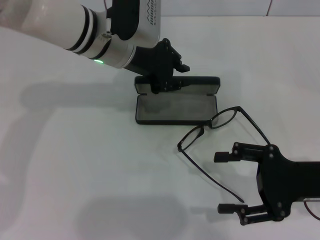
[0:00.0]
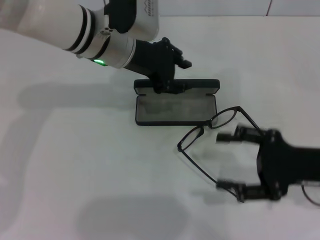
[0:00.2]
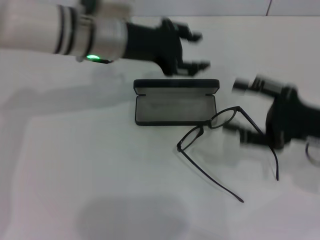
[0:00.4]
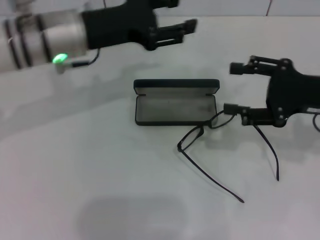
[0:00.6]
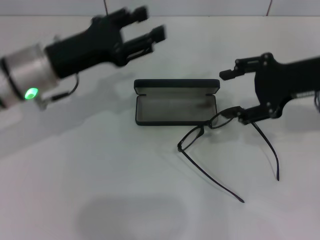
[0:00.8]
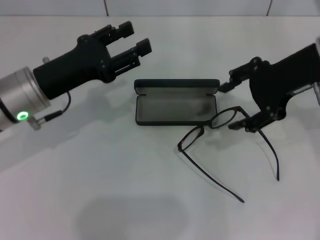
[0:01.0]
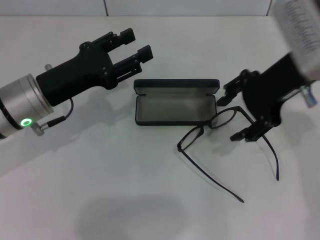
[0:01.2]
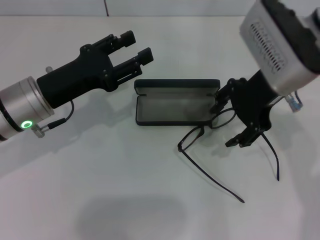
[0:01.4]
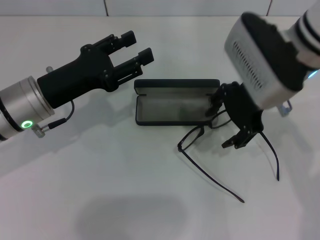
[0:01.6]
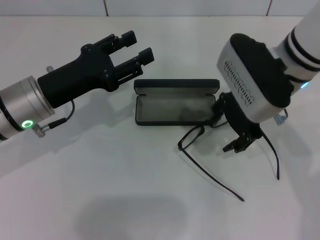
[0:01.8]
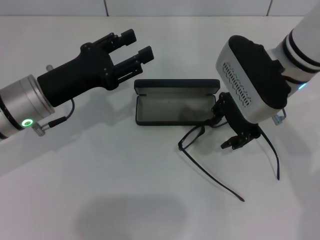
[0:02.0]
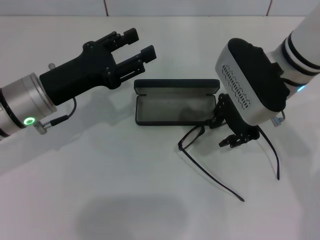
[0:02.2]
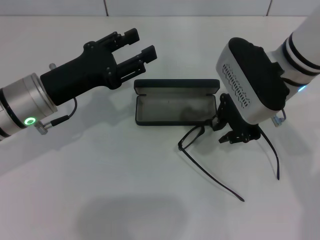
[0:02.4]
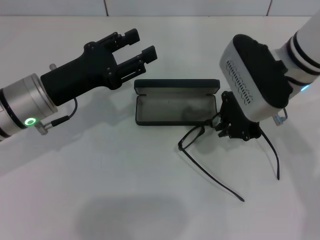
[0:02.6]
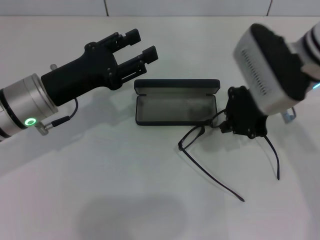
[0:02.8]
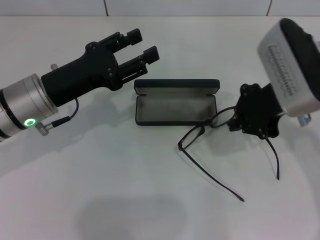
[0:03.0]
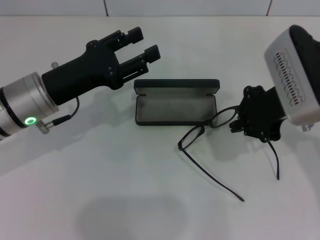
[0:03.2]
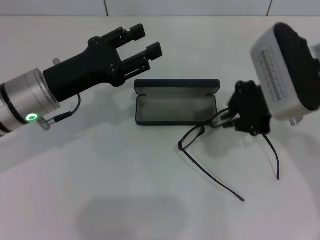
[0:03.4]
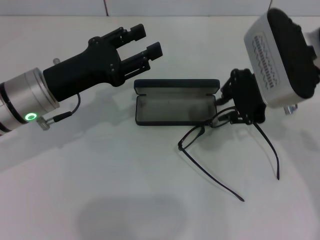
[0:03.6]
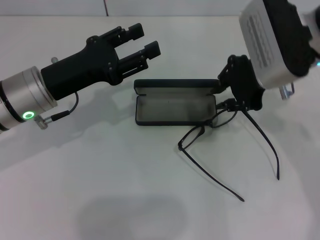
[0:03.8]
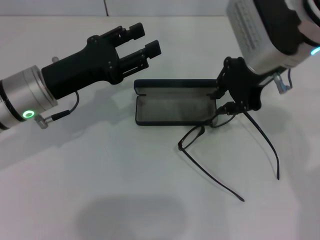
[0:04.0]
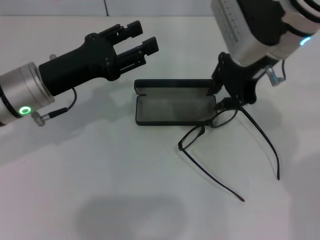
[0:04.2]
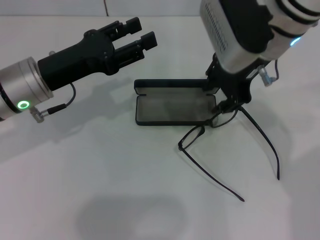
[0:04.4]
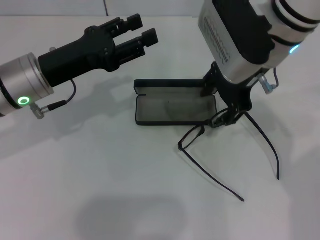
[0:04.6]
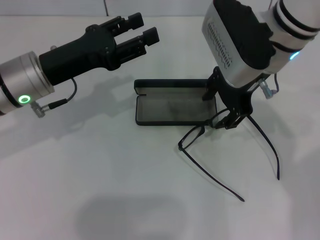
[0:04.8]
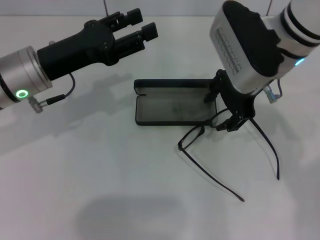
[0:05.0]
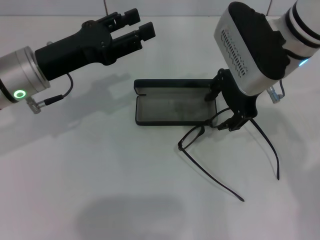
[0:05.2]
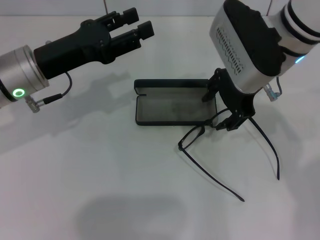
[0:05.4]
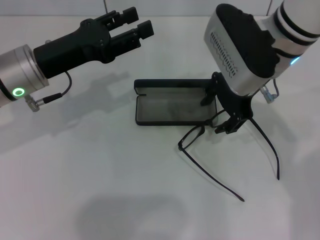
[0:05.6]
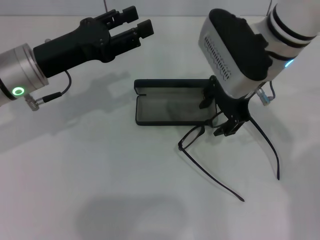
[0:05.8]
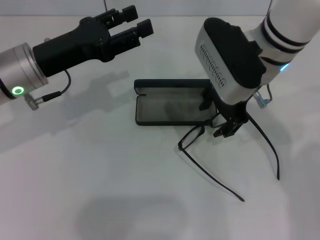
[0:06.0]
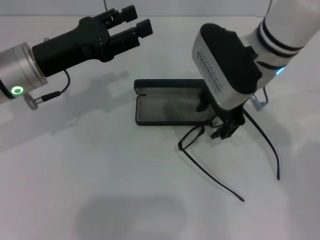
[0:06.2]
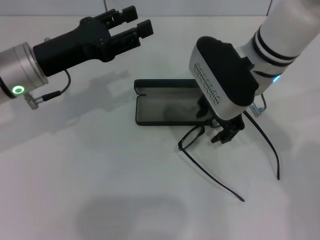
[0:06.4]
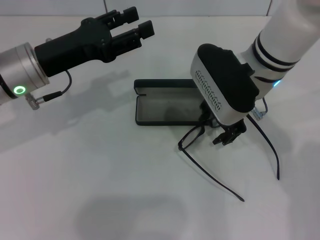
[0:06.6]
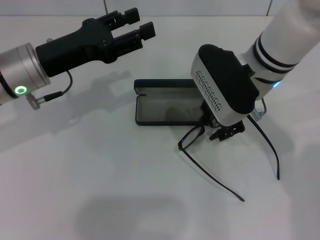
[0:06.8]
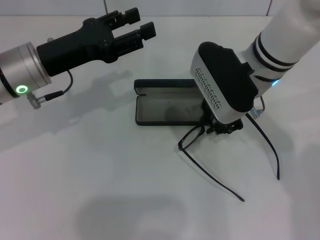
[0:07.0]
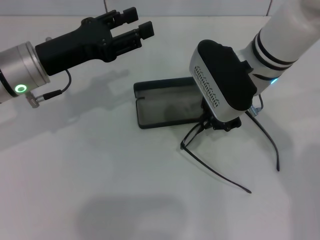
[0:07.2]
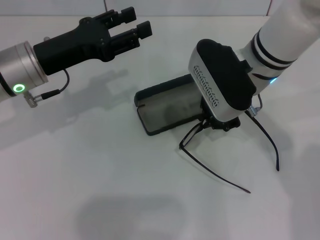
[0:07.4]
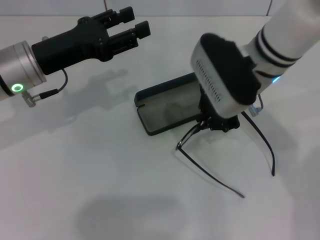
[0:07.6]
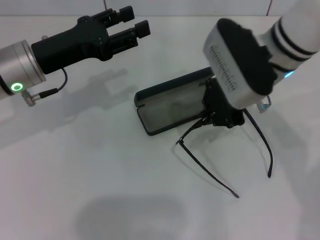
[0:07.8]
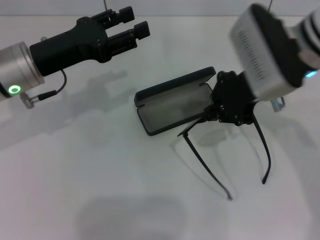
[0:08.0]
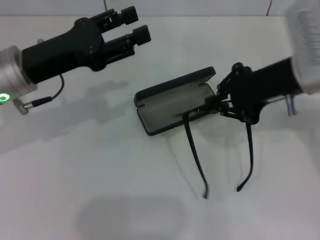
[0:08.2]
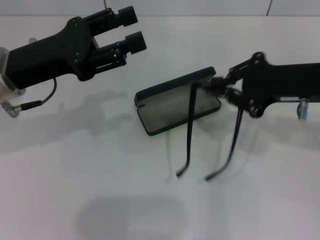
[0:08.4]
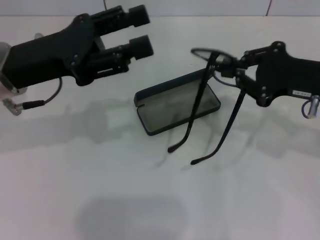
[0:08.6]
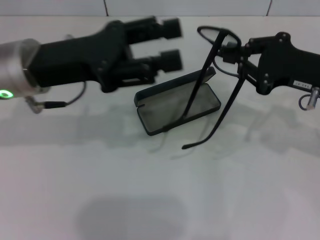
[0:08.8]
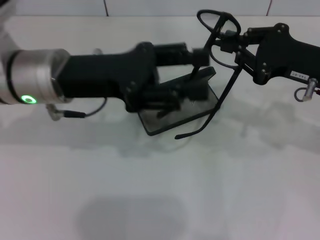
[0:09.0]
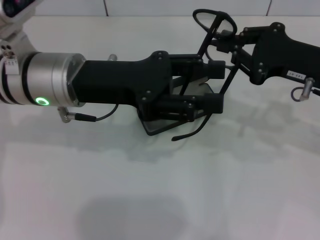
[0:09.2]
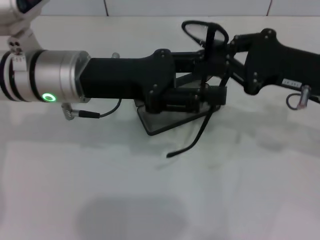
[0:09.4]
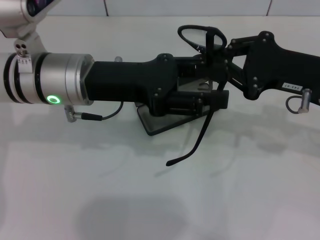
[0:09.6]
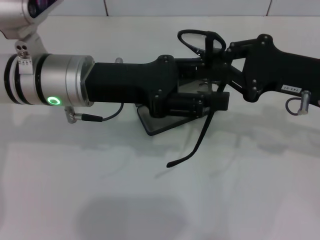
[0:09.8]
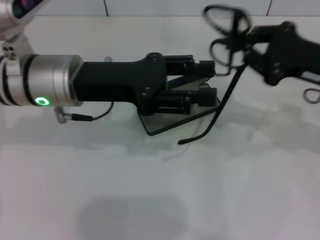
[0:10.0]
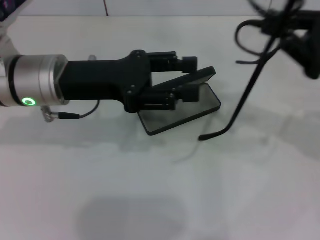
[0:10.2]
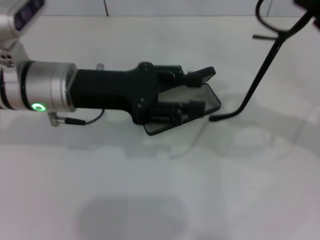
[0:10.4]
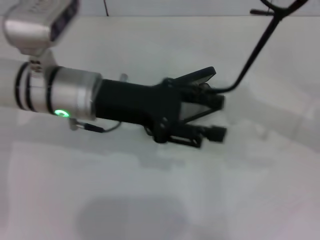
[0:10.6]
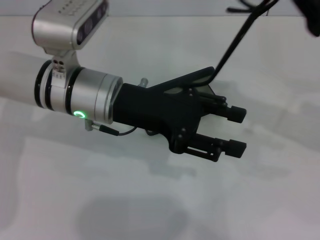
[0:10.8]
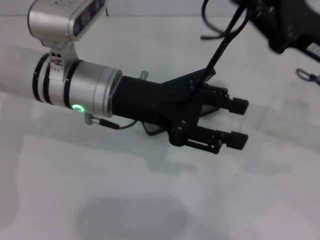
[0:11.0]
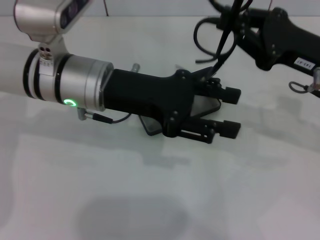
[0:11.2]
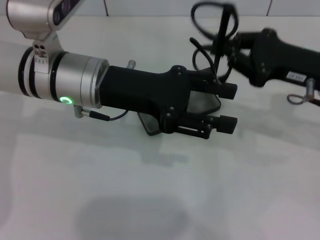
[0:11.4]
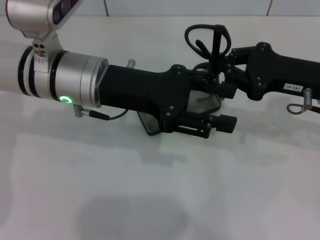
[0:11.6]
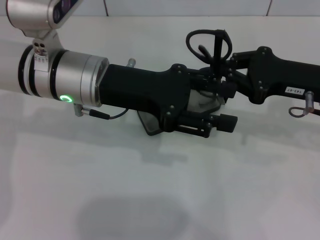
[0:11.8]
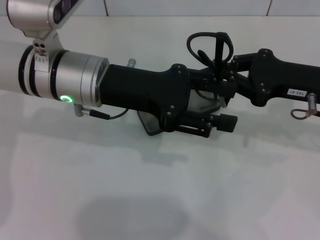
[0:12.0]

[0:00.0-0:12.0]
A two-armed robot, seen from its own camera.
Step, 0:00.2 to 0:07.2: Grab the eyeglass frame with your right hand.
0:00.0 to 0:01.6: The left gripper is displaced to the left, backward and downward by roughly 15 cm, and opens its fingers. Meanwhile the right gripper goes about 20 cm to the left, upward and forward.
0:01.6 to 0:03.0: The right gripper closes its fingers.
0:03.0 to 0:04.4: The right gripper heads to the left, covering approximately 5 cm, and opens its fingers.
0:04.4 to 0:06.0: The right gripper opens up.
0:06.0 to 0:07.6: The right gripper closes up.
0:07.6 to 0:09.0: The right gripper moves to the right, roughly 15 cm; the left gripper shifts some 5 cm to the right.
0:09.0 to 0:10.4: The right gripper shifts by some 5 cm.
0:10.4 to 0:12.0: The right gripper heads to the left, covering about 5 cm.

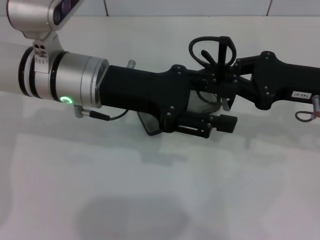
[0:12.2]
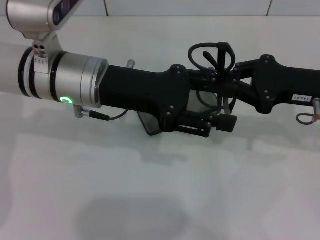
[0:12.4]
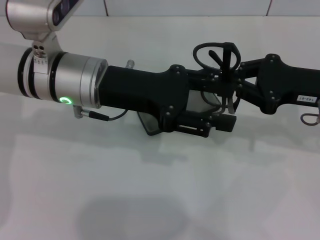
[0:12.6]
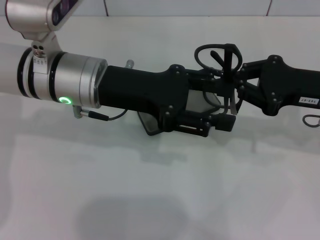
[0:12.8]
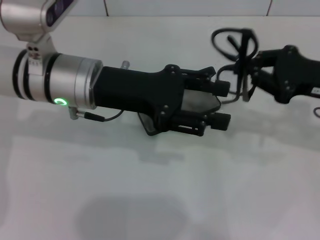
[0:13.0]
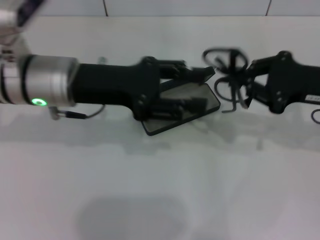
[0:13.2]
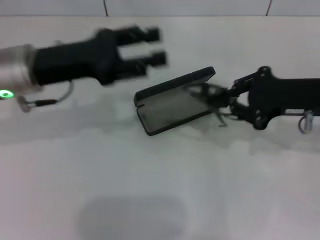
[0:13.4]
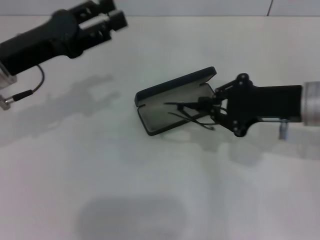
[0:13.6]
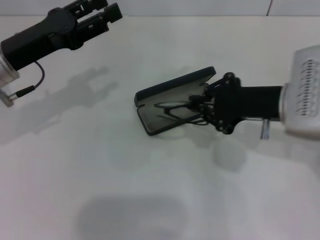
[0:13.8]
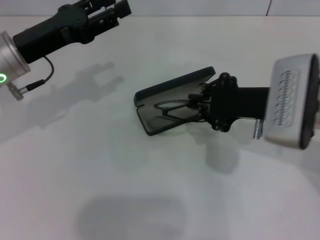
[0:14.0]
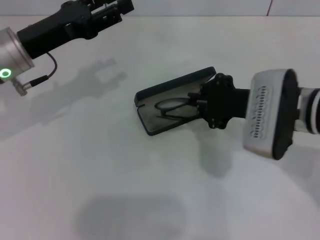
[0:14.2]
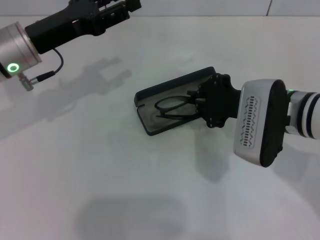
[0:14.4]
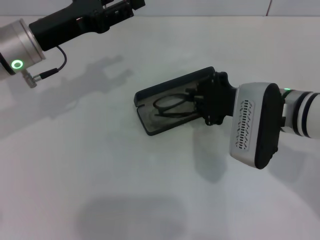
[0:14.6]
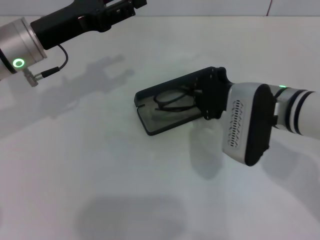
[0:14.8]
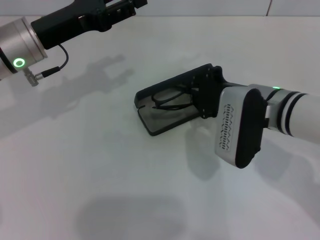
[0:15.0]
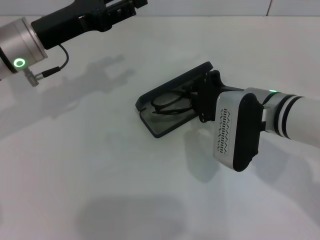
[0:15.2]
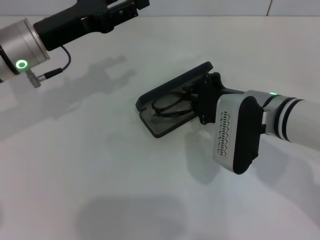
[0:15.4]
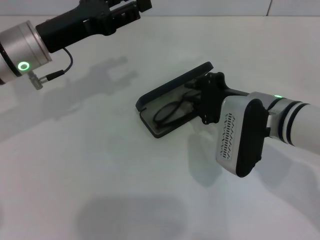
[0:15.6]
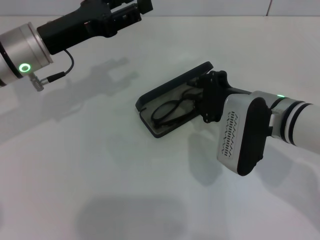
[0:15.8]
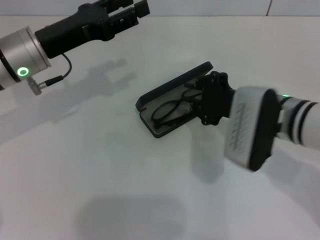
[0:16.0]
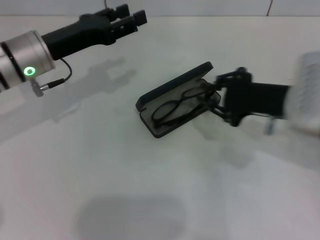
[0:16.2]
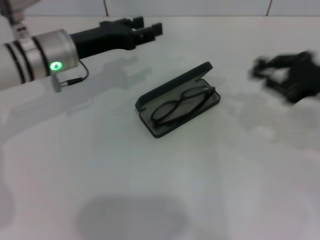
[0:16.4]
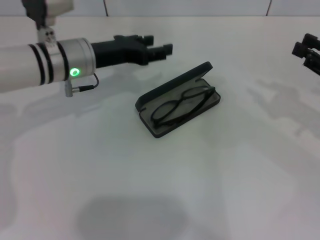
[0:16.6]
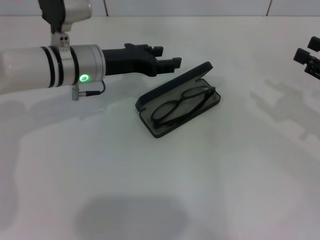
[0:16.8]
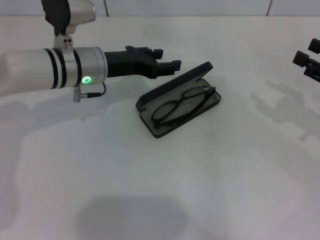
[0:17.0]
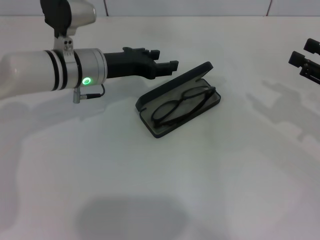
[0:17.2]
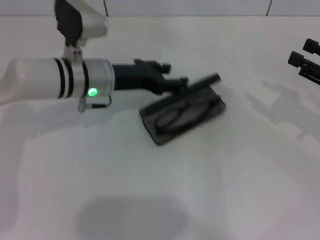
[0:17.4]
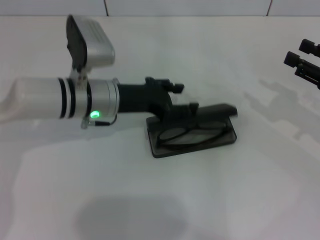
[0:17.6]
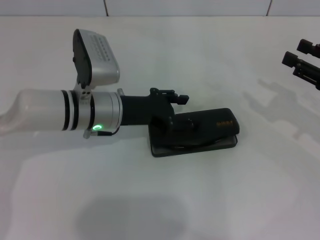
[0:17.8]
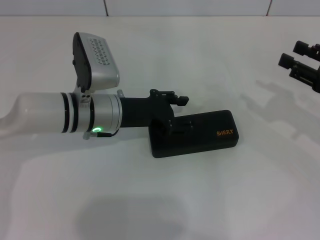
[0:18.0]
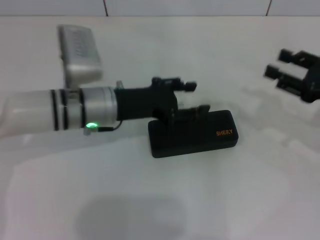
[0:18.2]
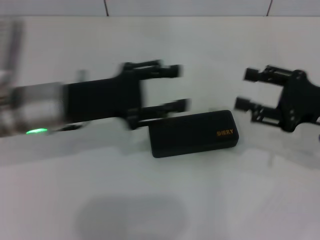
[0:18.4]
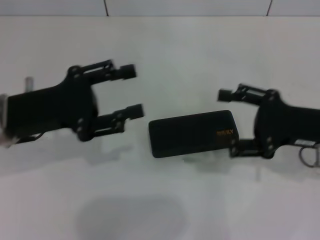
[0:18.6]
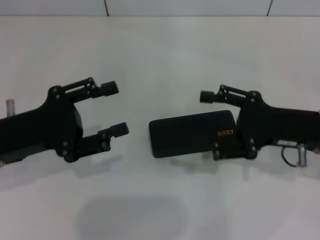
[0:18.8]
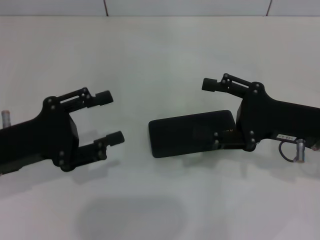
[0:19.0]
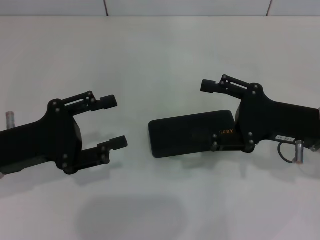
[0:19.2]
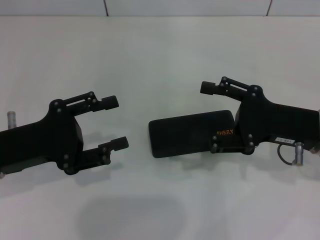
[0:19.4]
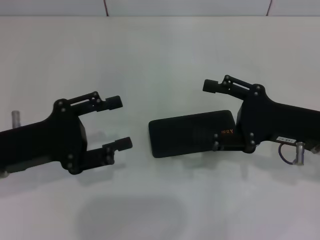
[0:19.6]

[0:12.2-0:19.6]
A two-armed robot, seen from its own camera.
Step, 0:12.8 to 0:15.8: Put the glasses into the case with your right hand.
Step, 0:16.0 to 0:17.8: Close the glasses case with your left hand.
0:12.2 to 0:13.6: The left gripper is displaced to the left by about 10 cm.
0:13.6 to 0:15.2: The left gripper changes place by some 5 cm. The right gripper travels to the left by approximately 10 cm.
0:15.2 to 0:16.6: The right gripper is displaced to the right by some 20 cm. The left gripper travels to the right by approximately 5 cm.
0:16.6 to 0:18.2: The right gripper opens. Meanwhile the left gripper moves backward, about 5 cm.
0:18.2 to 0:19.6: The right gripper travels to the left by about 10 cm. Meanwhile the left gripper shifts some 15 cm to the left and backward.

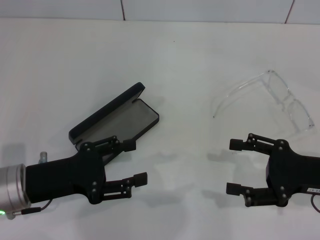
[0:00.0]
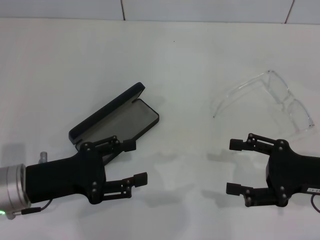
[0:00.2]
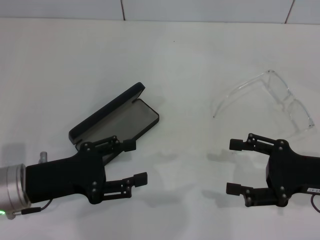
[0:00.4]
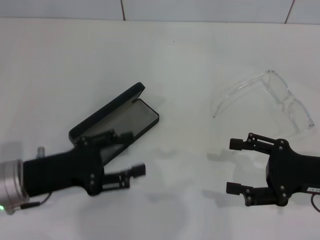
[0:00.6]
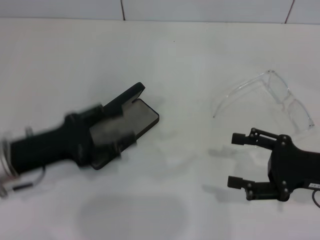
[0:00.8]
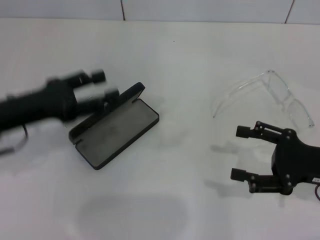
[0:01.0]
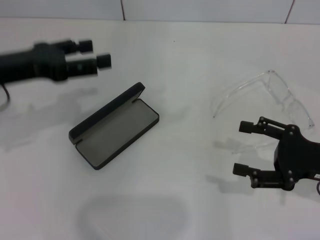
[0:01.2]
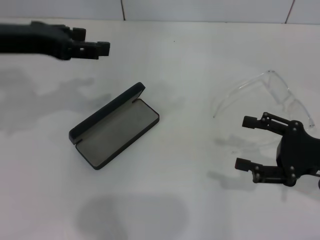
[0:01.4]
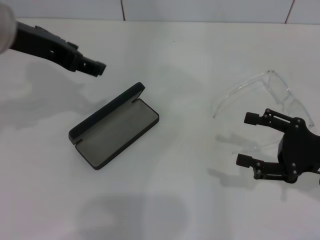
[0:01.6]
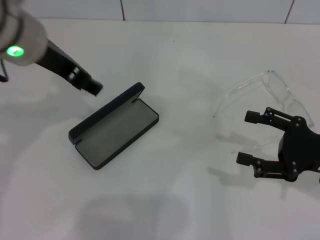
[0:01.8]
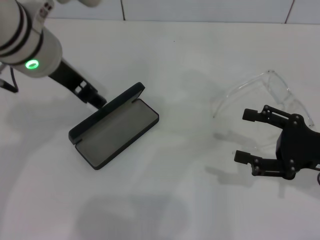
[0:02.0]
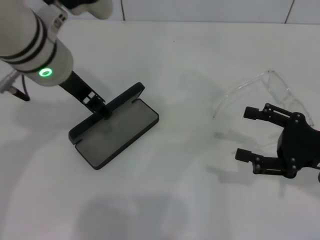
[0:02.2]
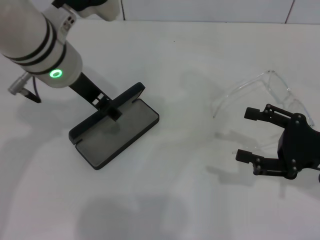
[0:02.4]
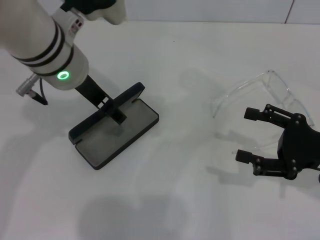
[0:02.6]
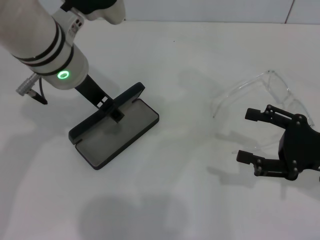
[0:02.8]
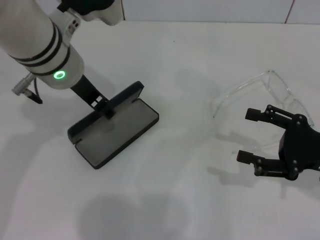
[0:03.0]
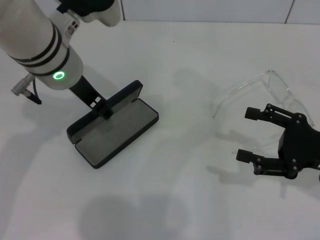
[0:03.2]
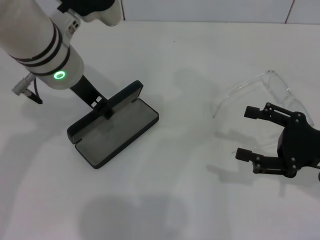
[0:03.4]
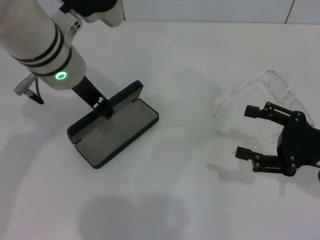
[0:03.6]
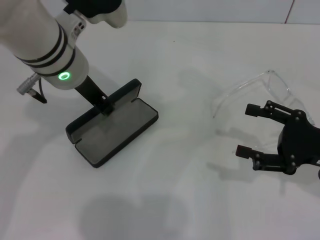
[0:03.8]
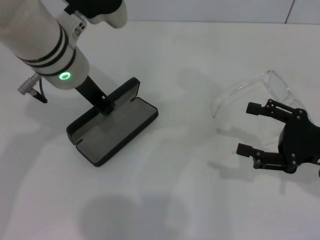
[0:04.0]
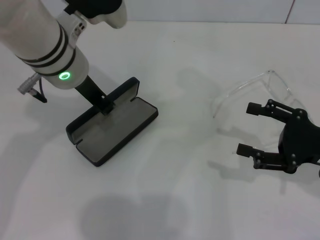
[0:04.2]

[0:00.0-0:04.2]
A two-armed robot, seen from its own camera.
Step, 0:00.0 to 0:03.8: Grab the glasses case with your left hand.
0:00.0 to 0:01.4: The left gripper heads upward and forward, covering some 20 cm.
0:01.4 to 0:02.8: The left gripper travels to the right by about 10 cm.
0:02.8 to 0:04.2: The left gripper closes up.
